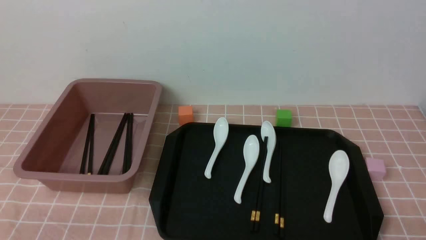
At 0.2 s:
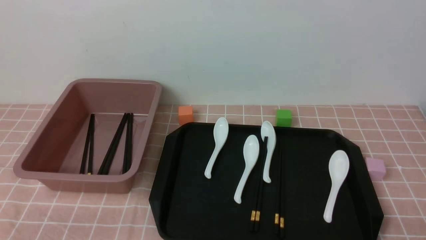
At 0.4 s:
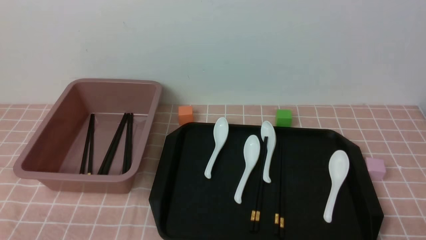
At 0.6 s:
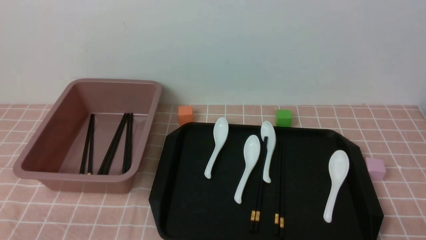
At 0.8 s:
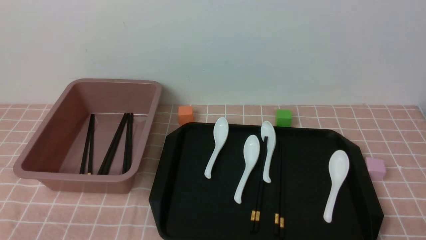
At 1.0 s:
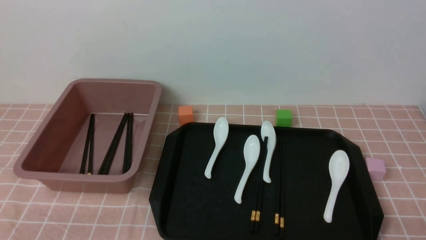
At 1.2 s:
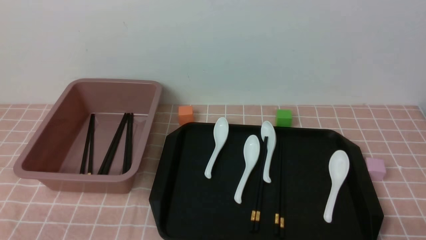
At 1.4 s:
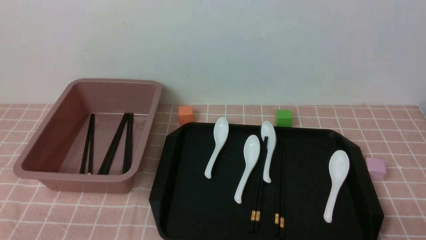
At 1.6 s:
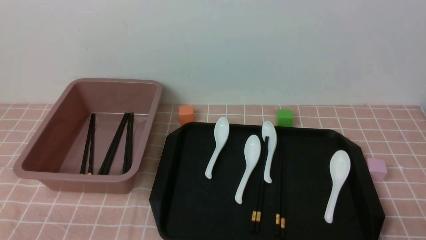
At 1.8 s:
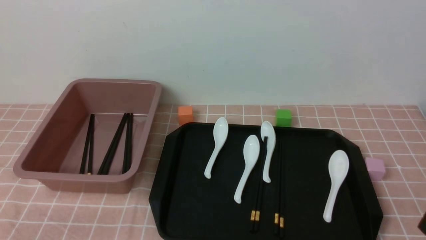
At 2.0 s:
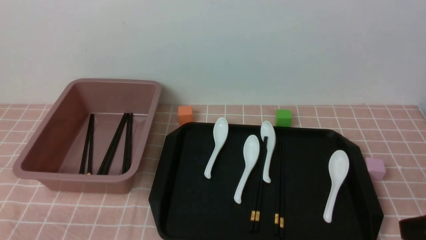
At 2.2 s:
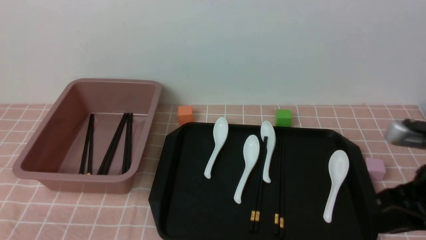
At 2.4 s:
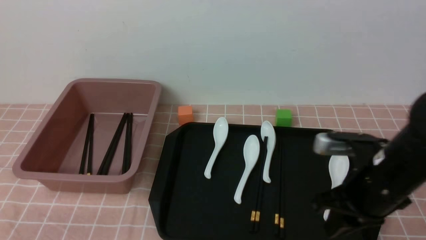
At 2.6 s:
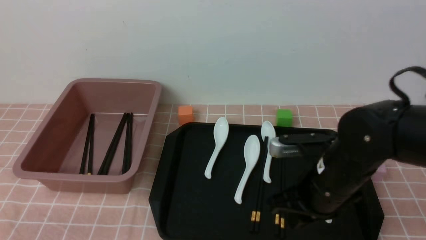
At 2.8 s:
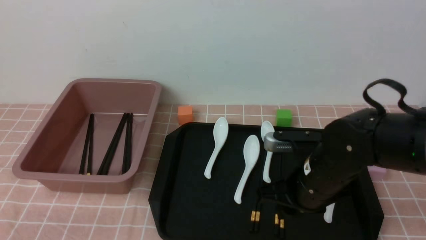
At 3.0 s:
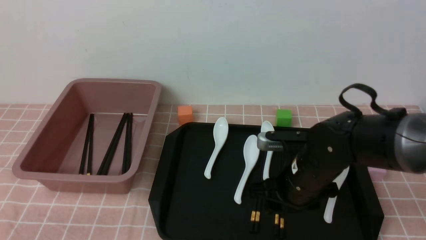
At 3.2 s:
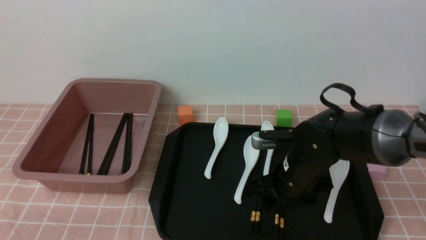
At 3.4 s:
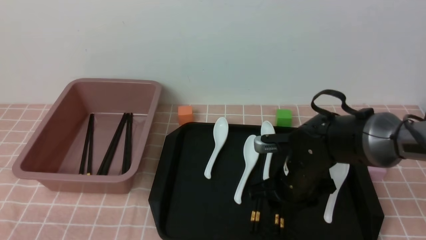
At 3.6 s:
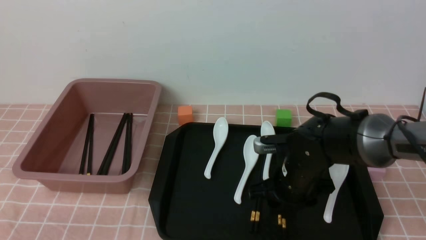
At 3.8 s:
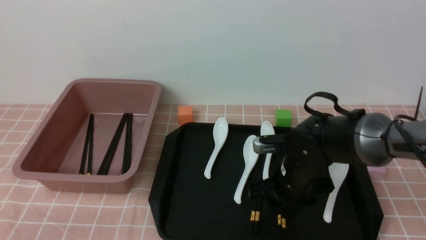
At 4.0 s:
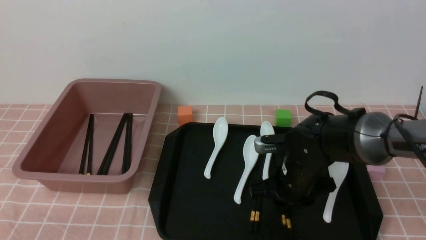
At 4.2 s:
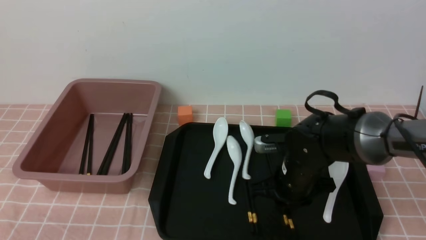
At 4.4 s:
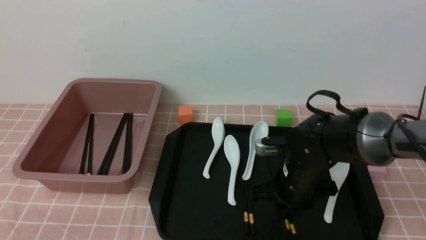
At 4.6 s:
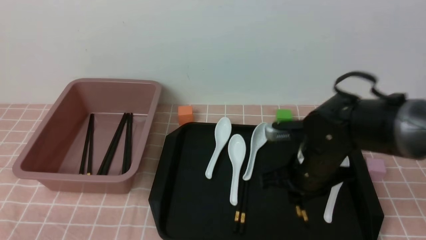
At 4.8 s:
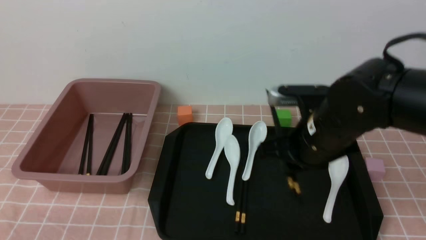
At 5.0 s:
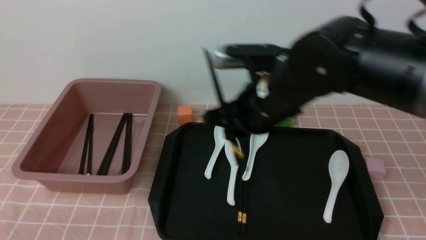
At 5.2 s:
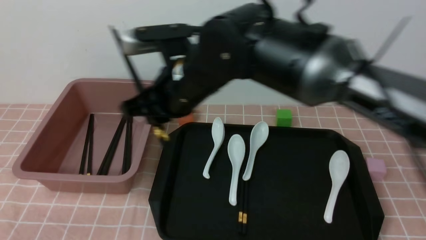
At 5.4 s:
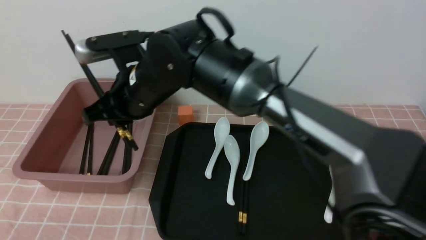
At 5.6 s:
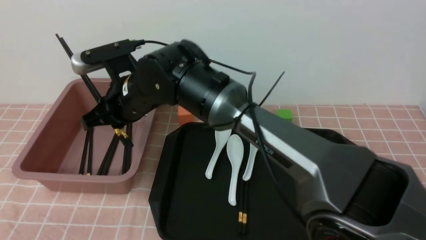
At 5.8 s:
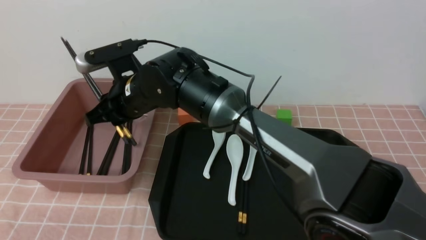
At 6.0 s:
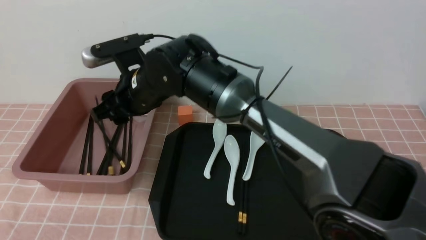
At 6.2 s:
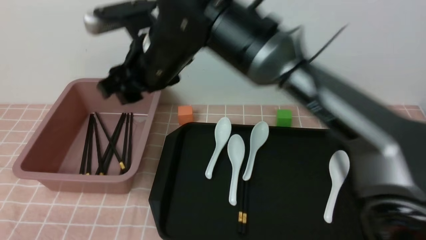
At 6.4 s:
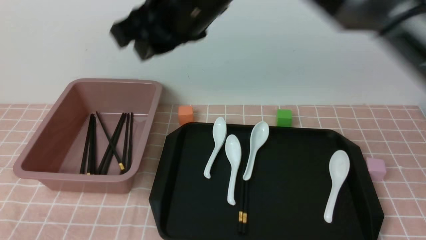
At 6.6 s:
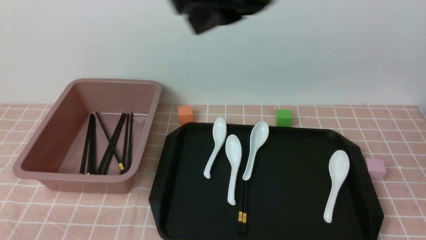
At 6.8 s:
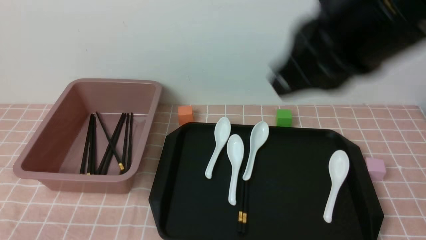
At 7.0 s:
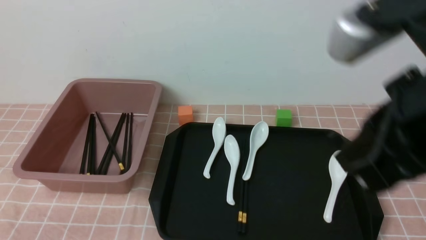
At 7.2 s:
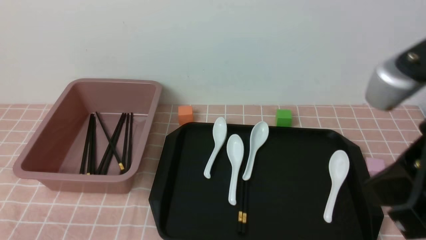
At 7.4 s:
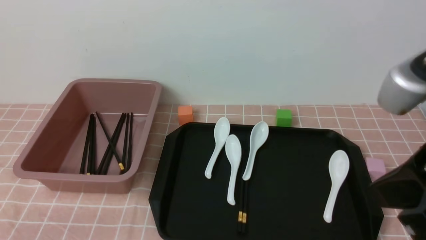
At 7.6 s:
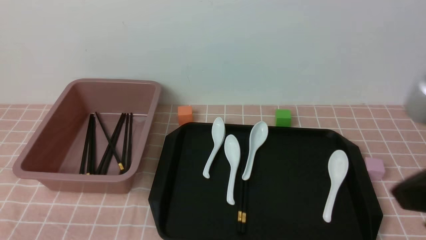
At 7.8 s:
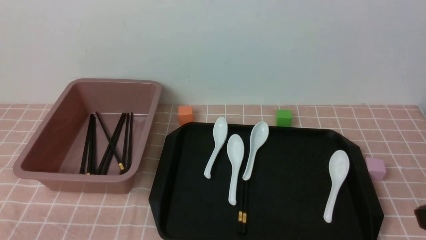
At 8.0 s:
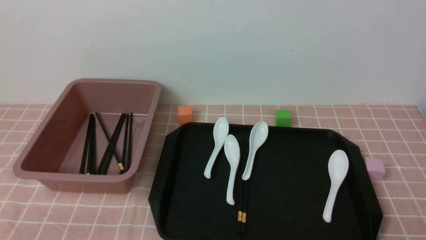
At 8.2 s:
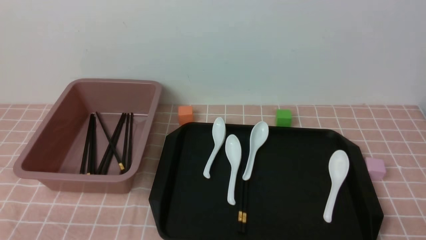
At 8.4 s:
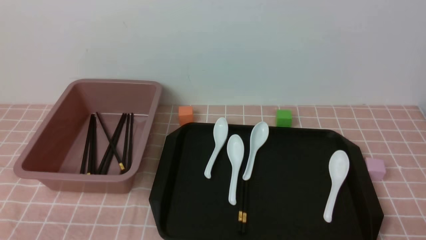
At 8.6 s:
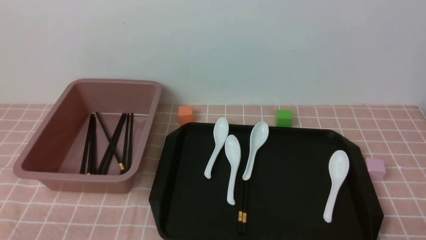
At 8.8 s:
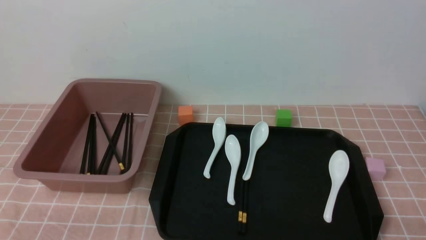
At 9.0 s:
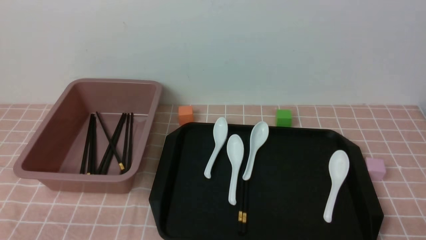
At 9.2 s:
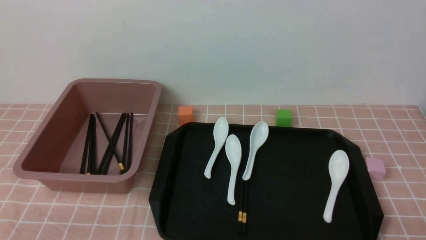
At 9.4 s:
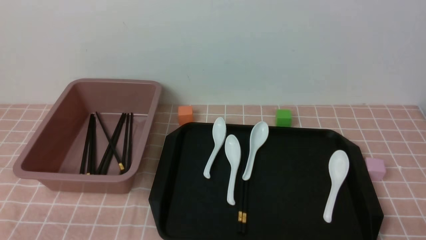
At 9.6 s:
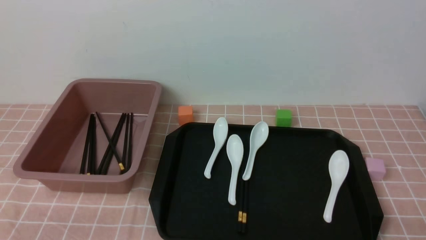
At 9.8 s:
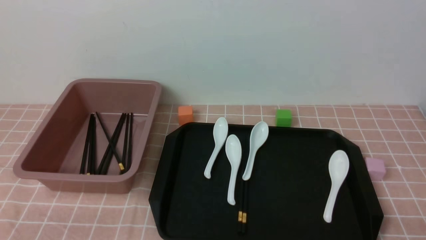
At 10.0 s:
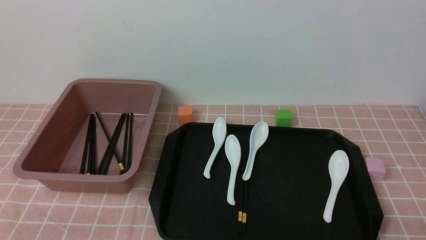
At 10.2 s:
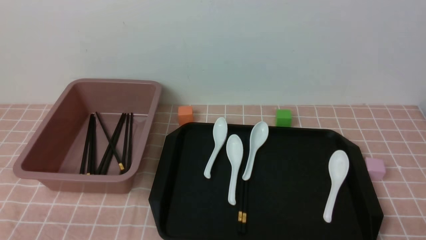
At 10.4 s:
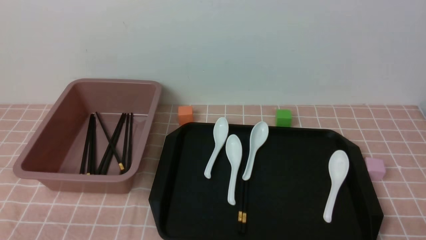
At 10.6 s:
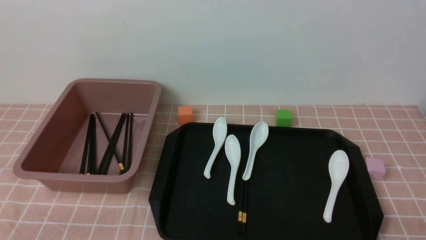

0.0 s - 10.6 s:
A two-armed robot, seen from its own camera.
Step, 0.0 s - 4.6 s: use the right arm to grab a pair of chopsticks.
Step, 5.0 s - 6.2 s: use the right arm to put the chopsticks into the lunch box.
0.0 s - 1.6 s: The right gripper goes some 5 cm upward.
1.6 s - 3.0 s: The right gripper moves forward and to the left, approximately 30 cm, and opens up.
3.0 s - 4.6 s: The right gripper closes its fingers.
4.6 s - 6.0 s: The right gripper travels to the left and upward by some 25 cm, and opens its fingers.
6.0 s - 7.6 s: The right gripper moves to the right and backward, some 40 cm, and closes its fingers.
7.6 s - 9.0 s: The right gripper shifts about 20 cm downward.
9.0 s - 10.6 s: Both grippers stay put.

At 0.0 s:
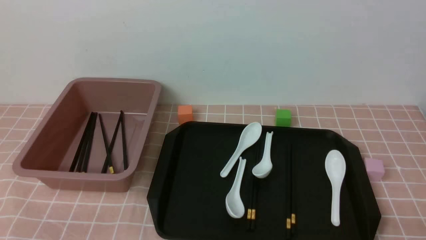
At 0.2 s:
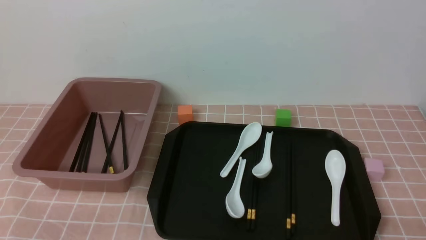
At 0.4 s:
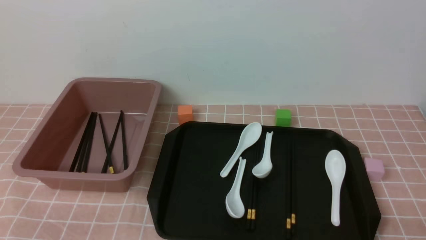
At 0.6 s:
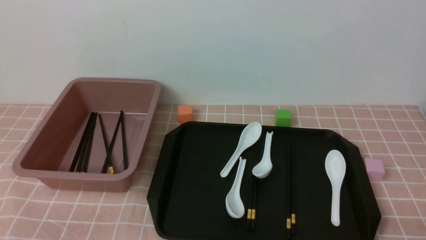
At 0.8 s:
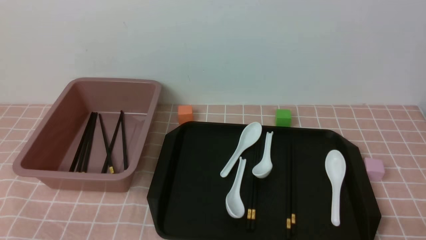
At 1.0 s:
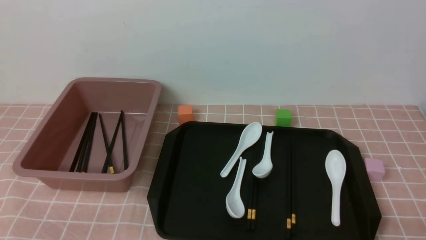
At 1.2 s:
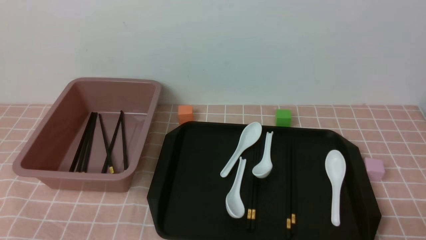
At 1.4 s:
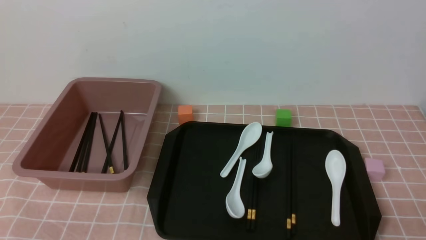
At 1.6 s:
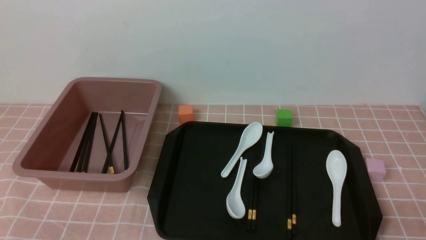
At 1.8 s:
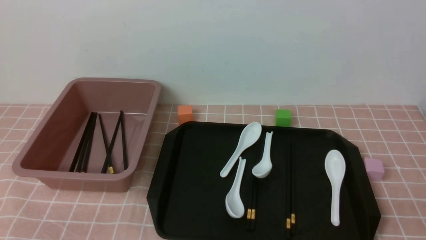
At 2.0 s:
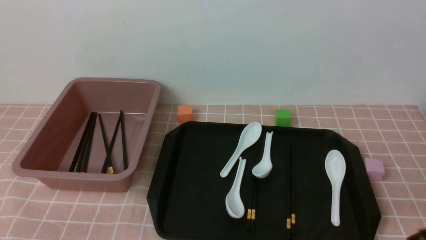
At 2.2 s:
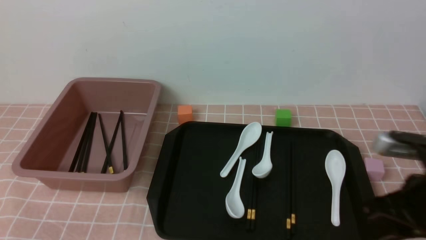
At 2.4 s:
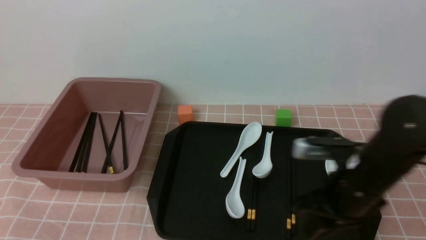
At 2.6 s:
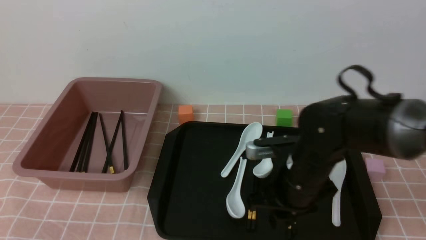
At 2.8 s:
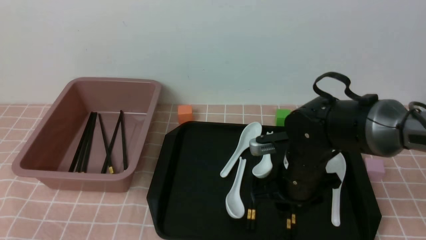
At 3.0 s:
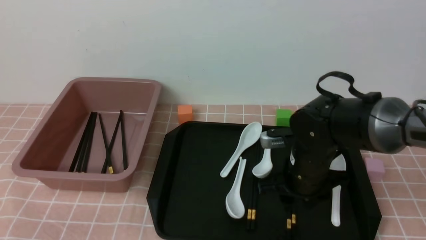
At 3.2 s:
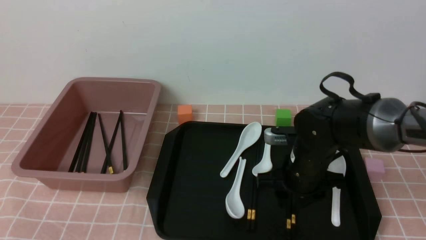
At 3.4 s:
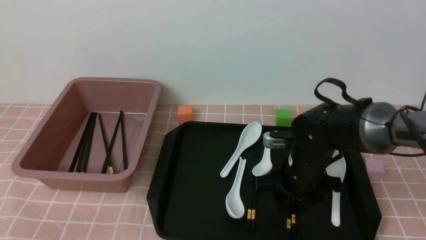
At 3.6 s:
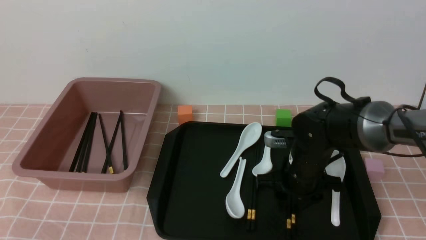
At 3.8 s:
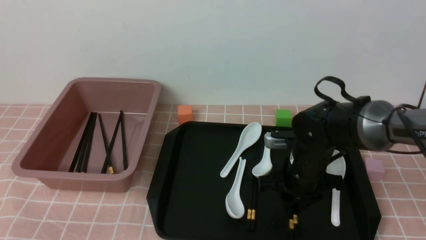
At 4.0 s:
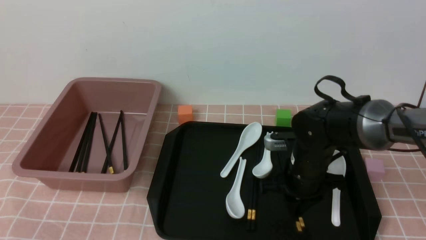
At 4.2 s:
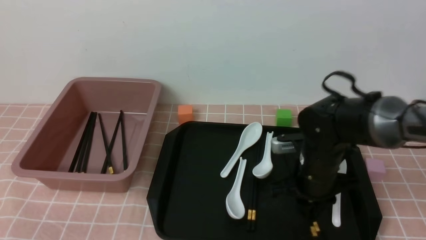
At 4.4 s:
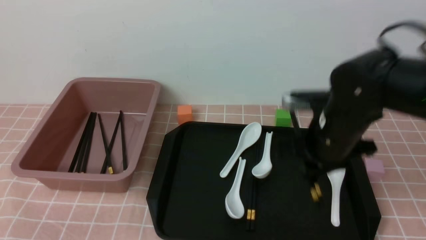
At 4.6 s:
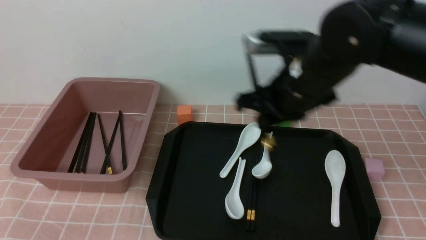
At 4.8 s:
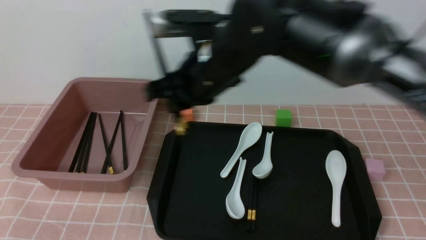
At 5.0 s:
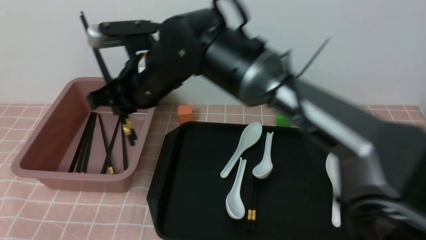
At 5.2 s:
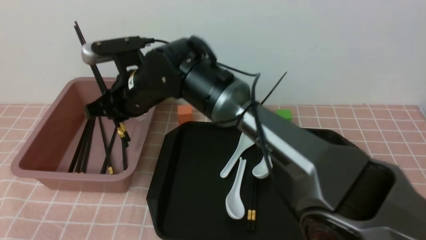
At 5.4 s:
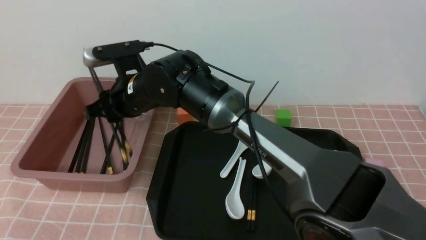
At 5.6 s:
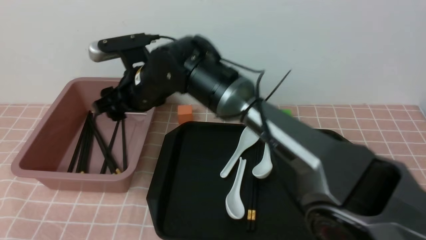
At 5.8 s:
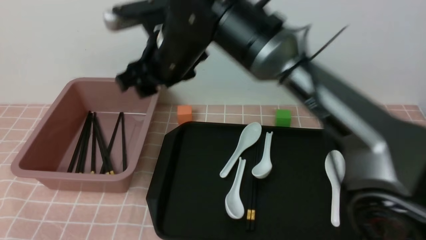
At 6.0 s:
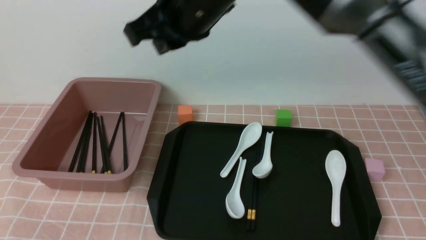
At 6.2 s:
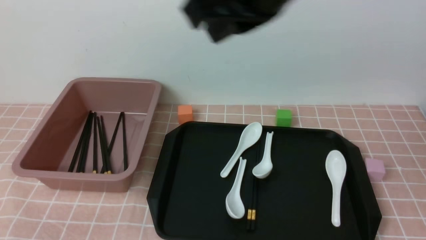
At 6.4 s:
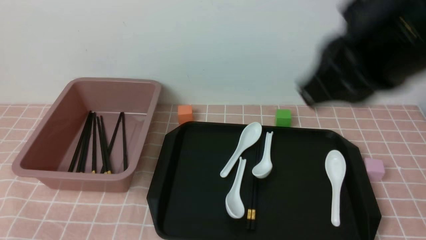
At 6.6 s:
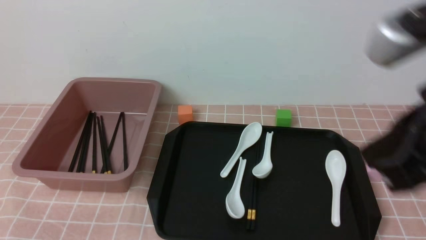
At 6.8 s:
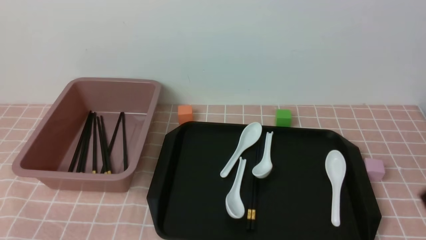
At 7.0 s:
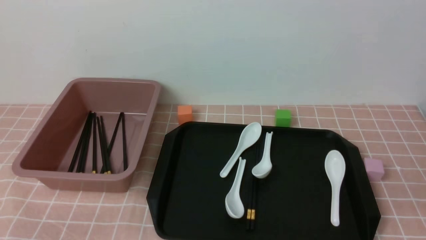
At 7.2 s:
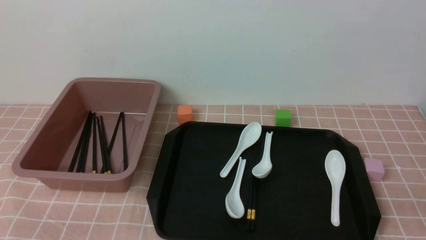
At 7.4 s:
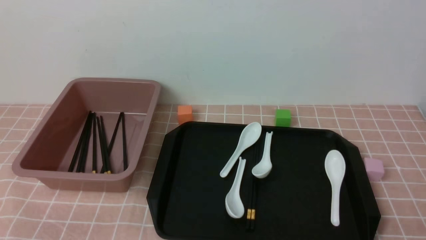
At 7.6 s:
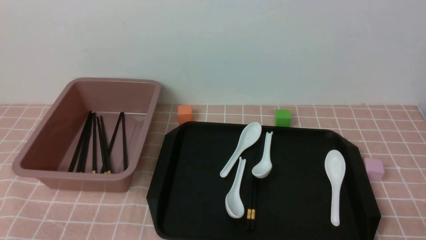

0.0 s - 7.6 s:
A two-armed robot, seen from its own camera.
Step, 0.0 s - 4.4 s: use the right arm to grab a pair of chopsticks.
Step, 4.6 s - 5.8 s: use the right arm to put the chopsticks into the lunch box.
0.0 s - 1.6 s: The right gripper heads upward, covering some 5 cm.
1.6 s - 3.0 s: The right gripper is displaced forward and to the left by roughly 30 cm, and opens.
3.0 s - 4.6 s: The right gripper goes approximately 15 cm upward, and closes its fingers.
4.6 s - 6.0 s: The right gripper is displaced upward and to the left by roughly 15 cm, and opens, then closes once more.
6.0 s - 7.6 s: The right gripper goes roughly 50 cm to the right, backward and downward, and closes its fingers.
